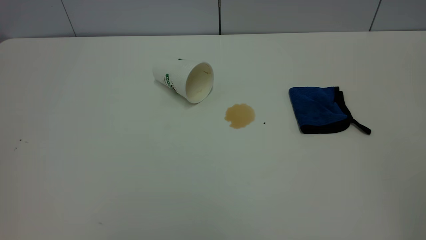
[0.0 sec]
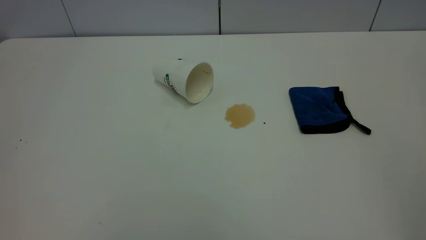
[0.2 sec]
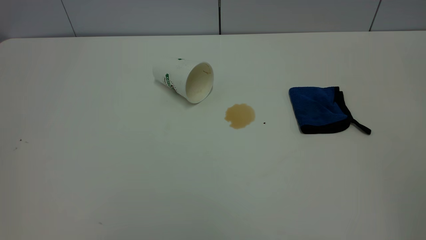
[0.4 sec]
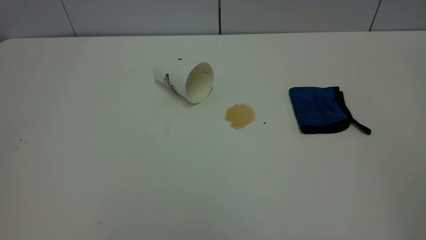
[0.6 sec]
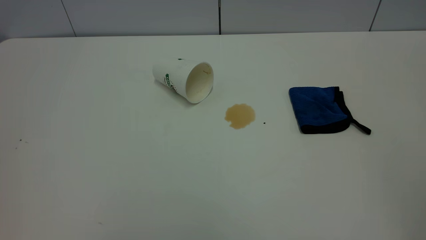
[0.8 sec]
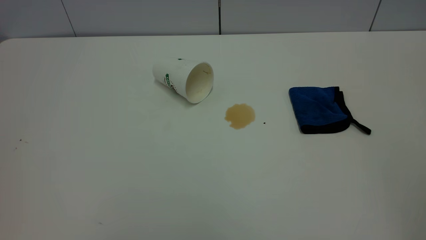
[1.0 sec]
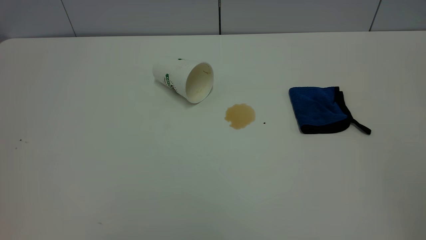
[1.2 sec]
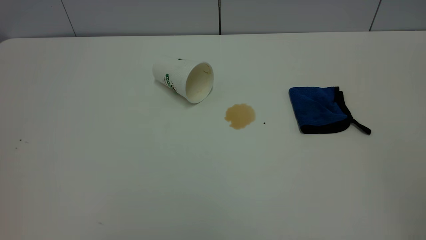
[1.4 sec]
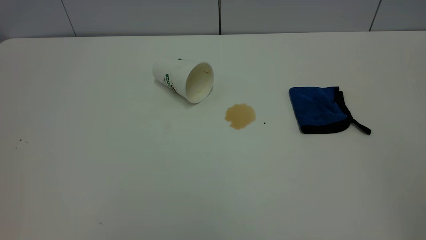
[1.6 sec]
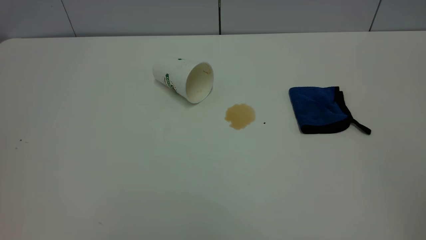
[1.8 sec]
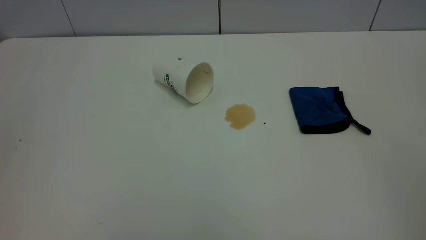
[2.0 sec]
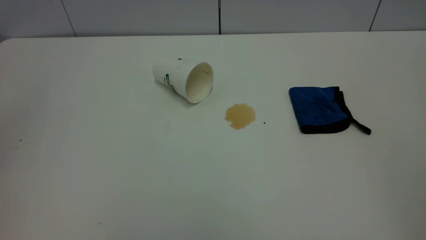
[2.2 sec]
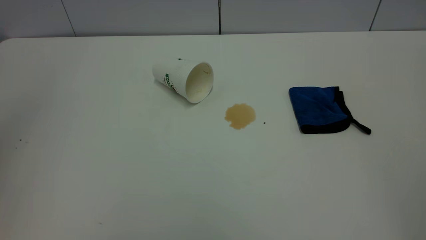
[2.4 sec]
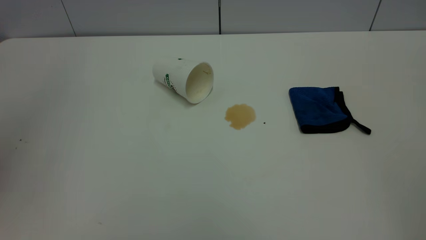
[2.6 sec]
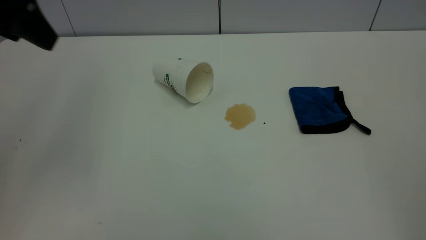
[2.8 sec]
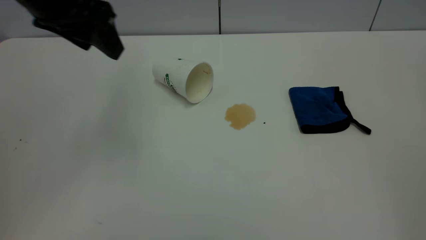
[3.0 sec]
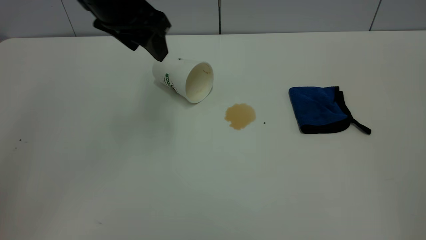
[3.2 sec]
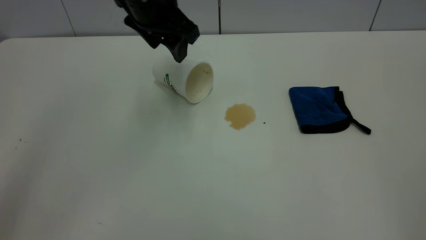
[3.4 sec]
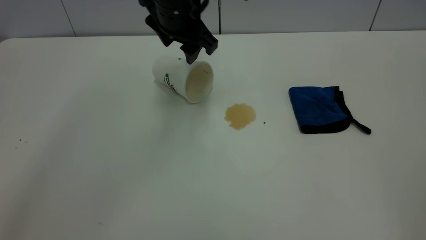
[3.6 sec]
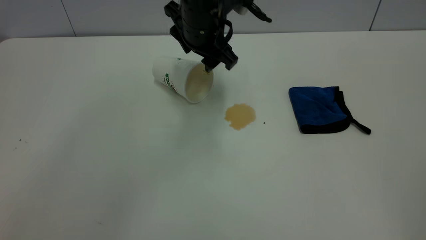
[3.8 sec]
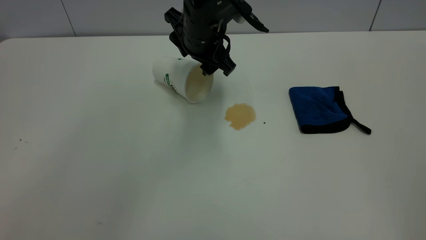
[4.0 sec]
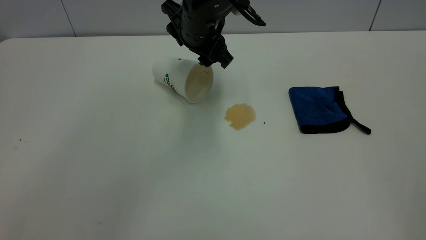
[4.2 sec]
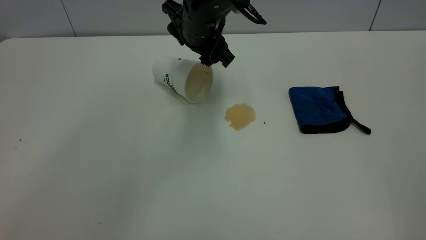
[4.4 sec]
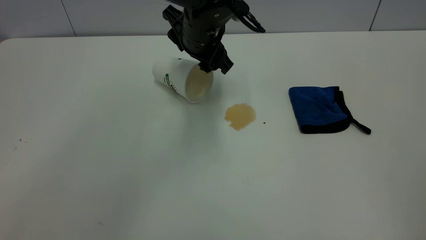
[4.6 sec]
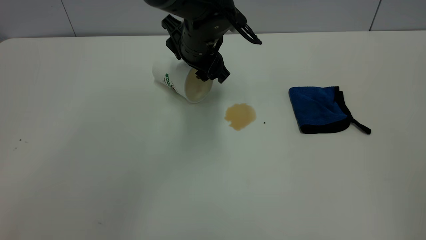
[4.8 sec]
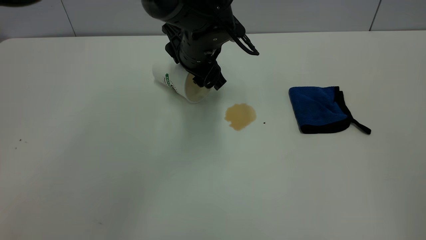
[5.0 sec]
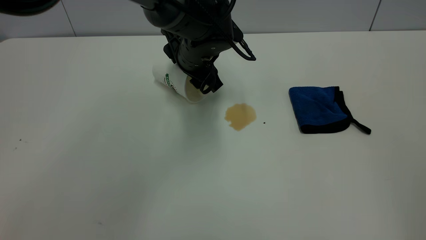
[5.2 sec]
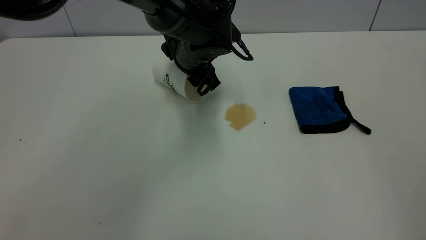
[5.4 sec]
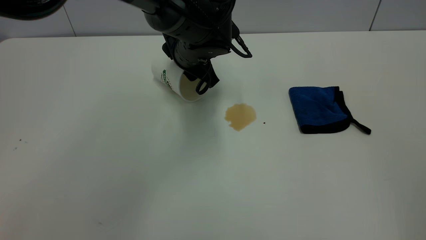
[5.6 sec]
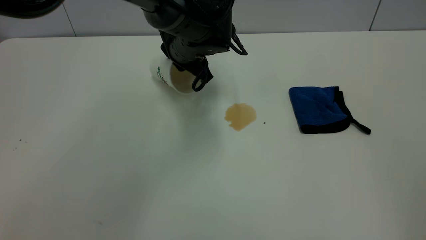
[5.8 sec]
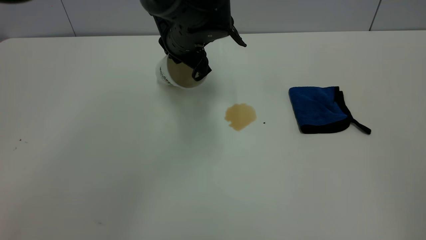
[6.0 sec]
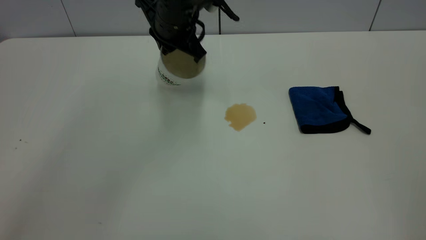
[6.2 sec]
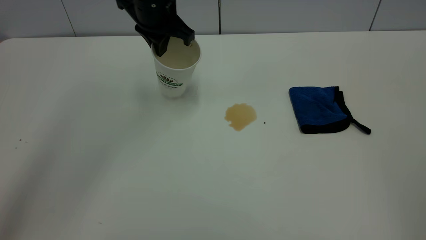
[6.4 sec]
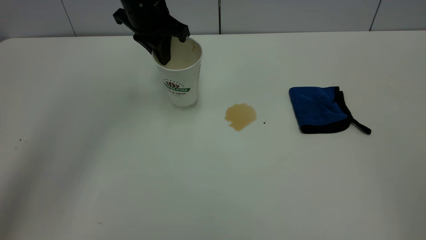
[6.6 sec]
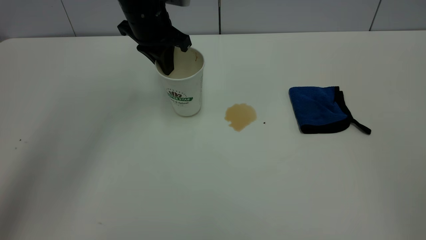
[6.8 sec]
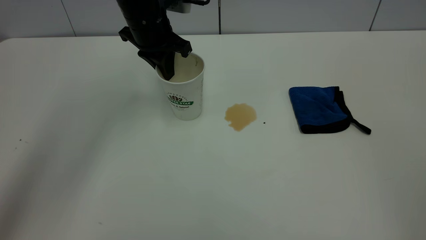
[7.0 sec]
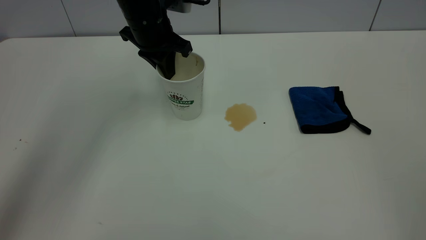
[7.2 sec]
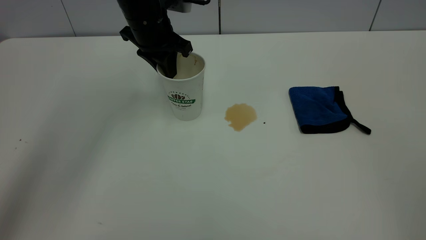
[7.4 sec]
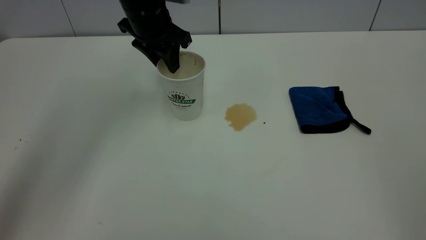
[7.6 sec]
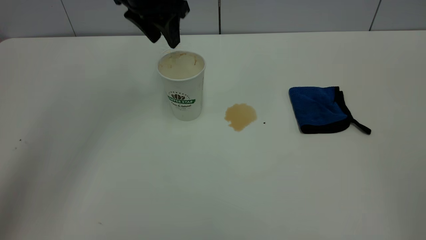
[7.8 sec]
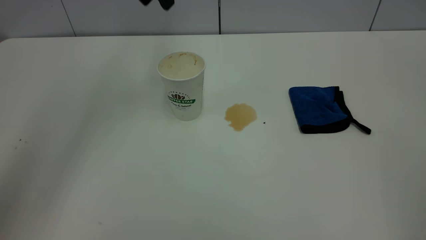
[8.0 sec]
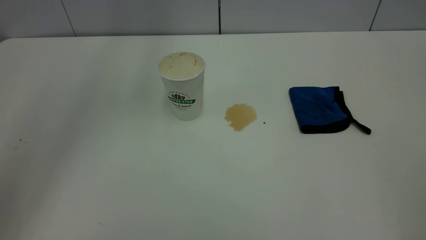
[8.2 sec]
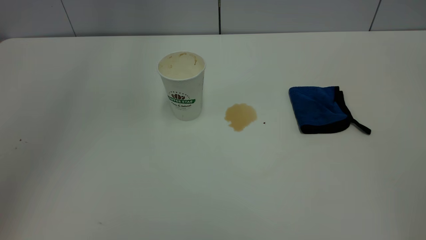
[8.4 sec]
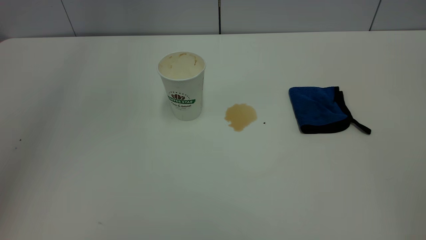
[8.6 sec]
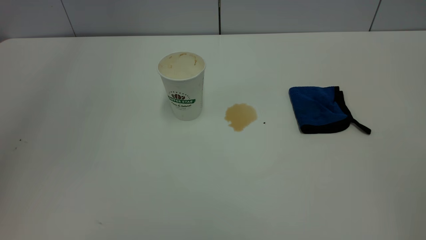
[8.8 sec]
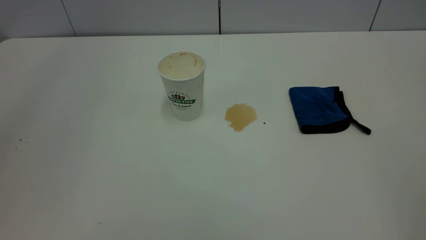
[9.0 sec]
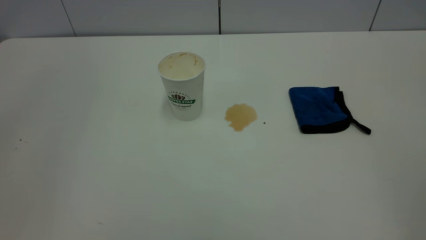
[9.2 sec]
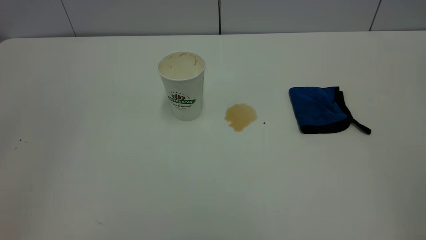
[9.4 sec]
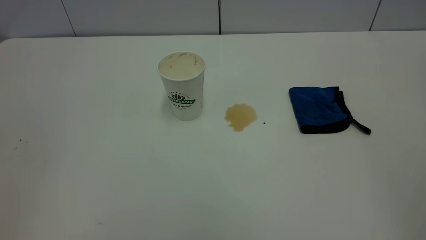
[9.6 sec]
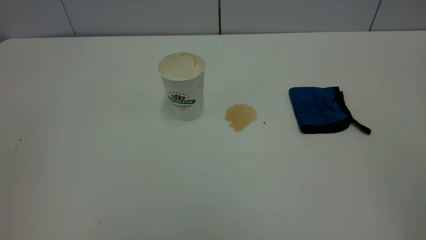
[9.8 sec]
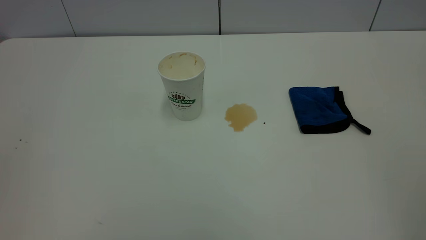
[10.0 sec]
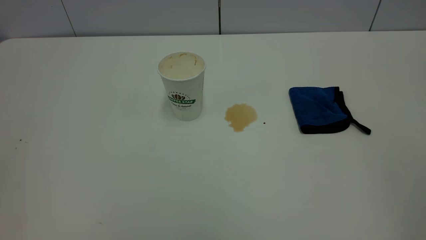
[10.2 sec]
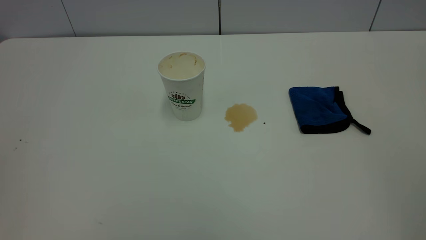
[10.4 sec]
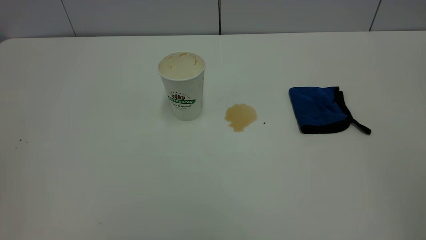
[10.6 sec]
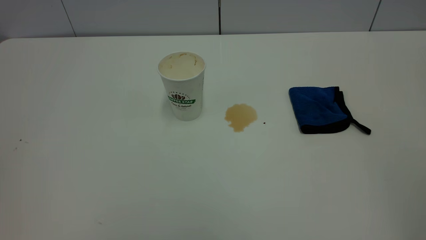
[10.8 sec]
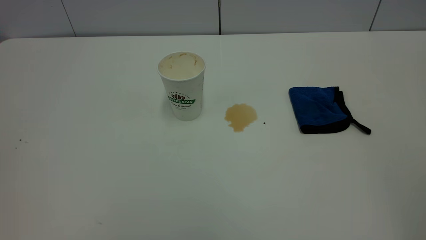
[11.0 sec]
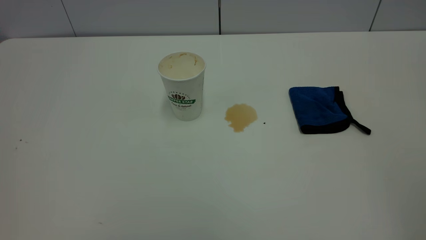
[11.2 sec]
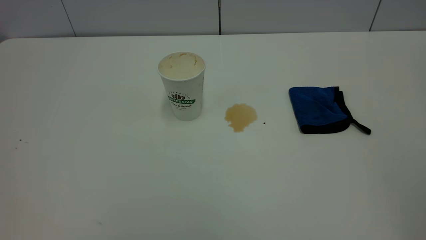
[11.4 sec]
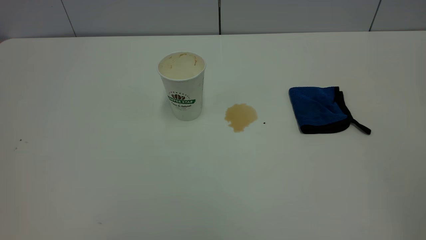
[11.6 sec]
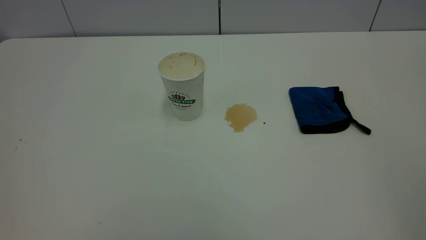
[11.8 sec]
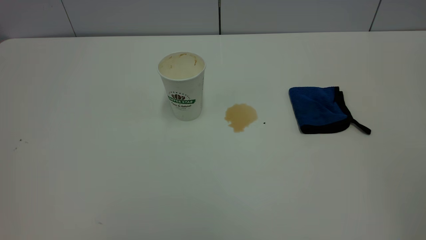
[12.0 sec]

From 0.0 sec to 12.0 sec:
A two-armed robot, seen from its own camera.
Task of the whole recording: the left gripper pick up the fallen cup and place it upright, the right gripper grasp the blue rag and wipe the tea stain on the table, the right gripper put the blue rag back in its original position.
Step, from 0.0 sec to 7.6 sec: Stand the paper cup upright.
From 0.0 sec to 1.6 sec: Neither gripper changes place.
From 1.6 sec to 3.0 sec: The left gripper shifts roughly 35 cm forward.
From 3.0 sec to 4.4 sec: The left gripper goes roughly 20 cm to the right, downward and forward.
From 4.4 sec to 6.0 sec: The left gripper closes its fingers.
From 6.0 sec to 7.6 sec: The left gripper heads to the left and upward, covering about 10 cm, and opens its fingers.
From 7.6 sec to 9.0 sec: The left gripper is displaced upward and backward by approximately 40 cm.

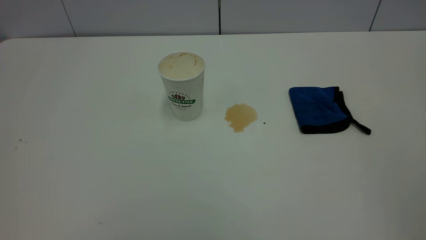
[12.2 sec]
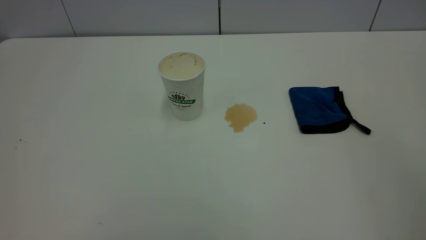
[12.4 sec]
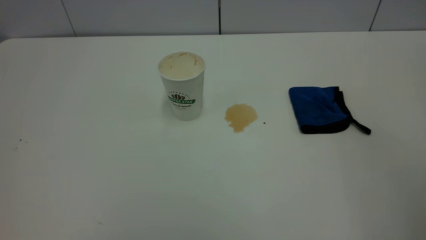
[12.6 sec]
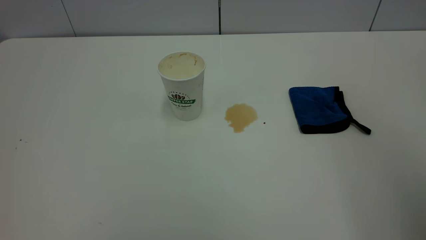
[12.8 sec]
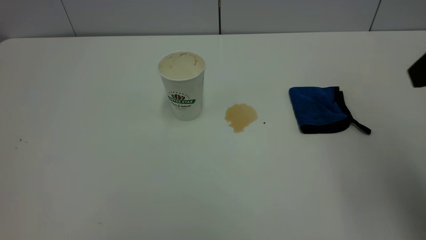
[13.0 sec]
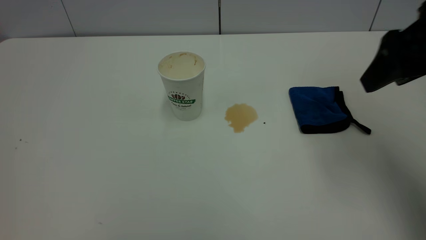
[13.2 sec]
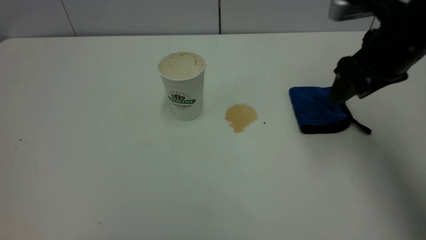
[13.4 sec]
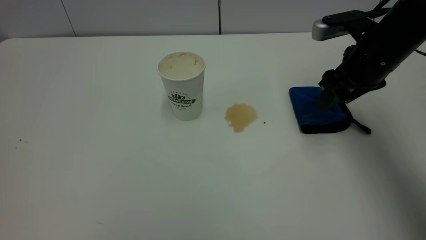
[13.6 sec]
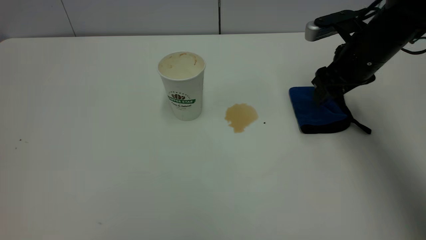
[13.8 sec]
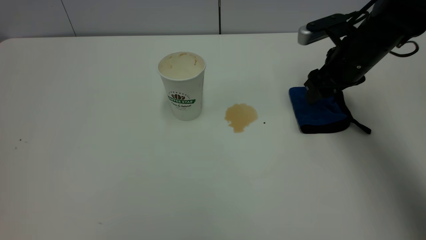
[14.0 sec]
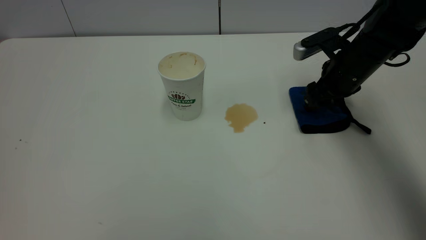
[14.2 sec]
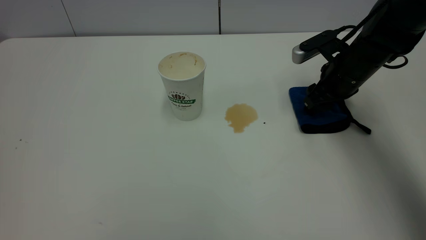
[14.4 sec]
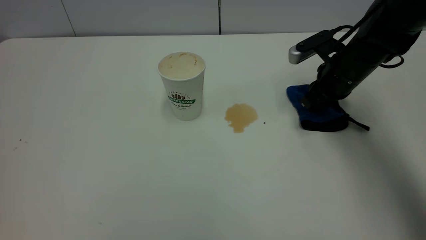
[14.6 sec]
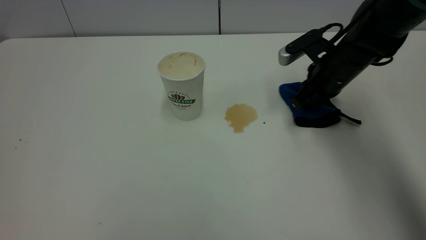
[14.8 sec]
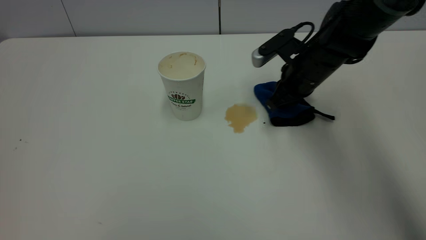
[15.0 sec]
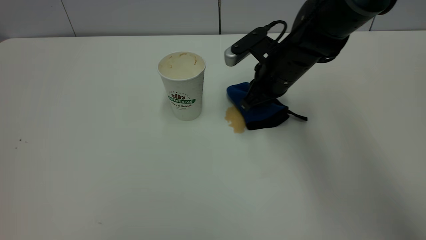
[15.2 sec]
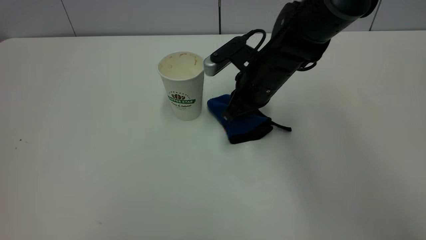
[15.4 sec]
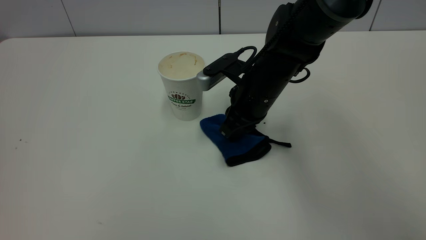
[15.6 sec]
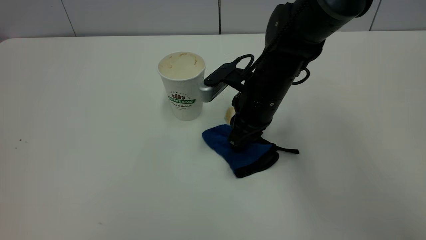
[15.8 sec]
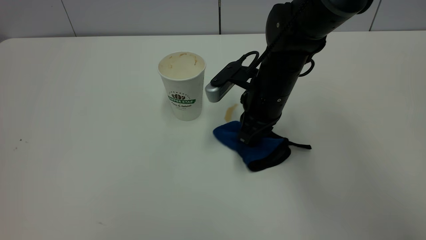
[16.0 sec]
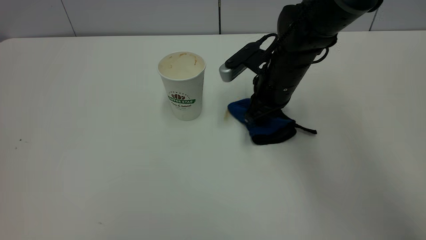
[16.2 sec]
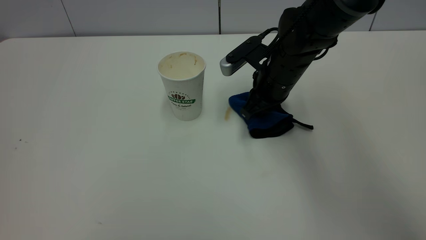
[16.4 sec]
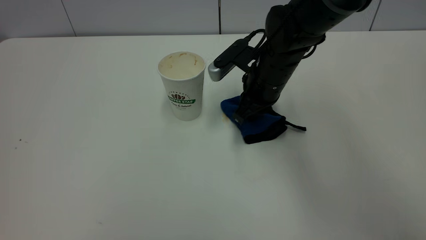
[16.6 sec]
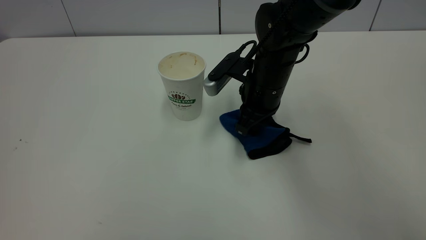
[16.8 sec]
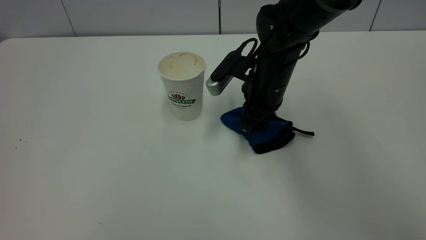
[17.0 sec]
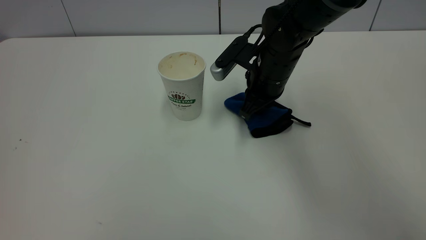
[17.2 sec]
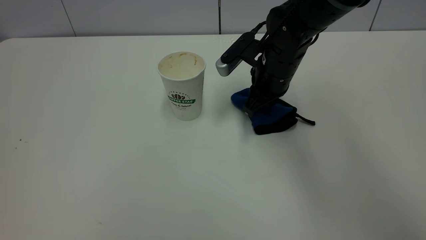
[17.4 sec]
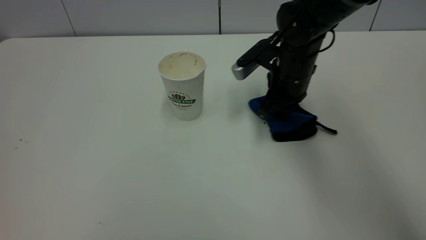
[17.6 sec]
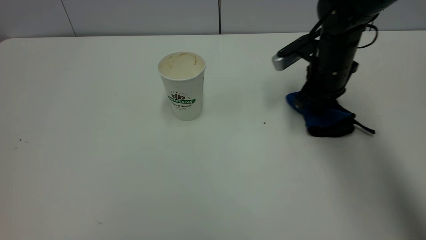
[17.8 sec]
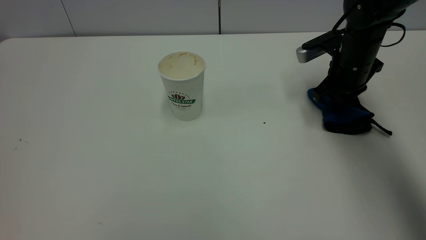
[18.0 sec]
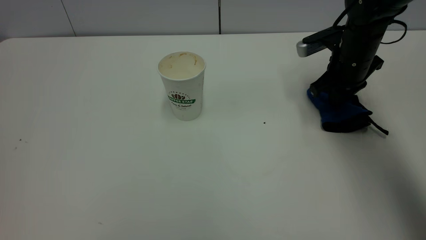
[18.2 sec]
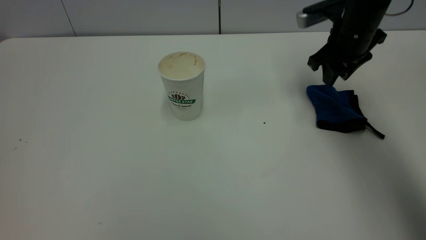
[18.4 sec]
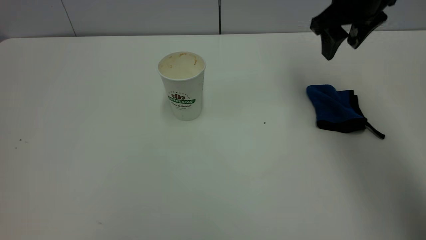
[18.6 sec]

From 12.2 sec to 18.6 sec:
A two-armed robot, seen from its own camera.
Task of the whole recording: the left gripper pick up the fallen cup and place it upright, the right gripper grasp the blue rag and wipe the tea stain on the table, the right gripper put the blue rag back in its original position.
Step, from 12.2 sec to 18.4 sec: Wipe the stains off the table with a rag.
From 12.2 sec to 13.8 sec: The right gripper shifts some 50 cm forward and downward.
From 13.8 sec to 15.4 sec: The right gripper goes approximately 15 cm to the left, and closes its fingers.
From 15.4 sec to 17.0 sec: The grippers make only small movements.
From 17.0 sec to 18.6 sec: The right gripper moves upward and to the right, roughly 20 cm, and opens up.
